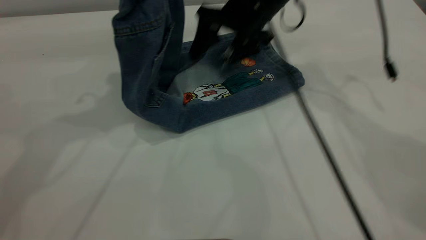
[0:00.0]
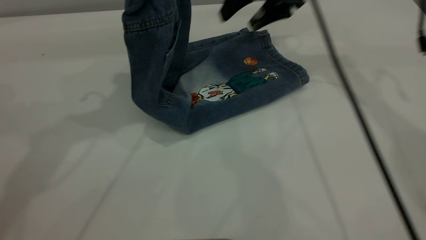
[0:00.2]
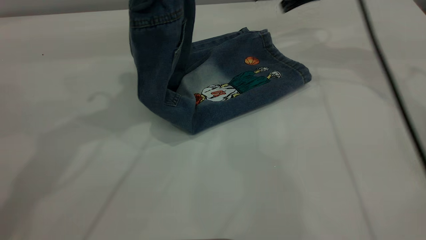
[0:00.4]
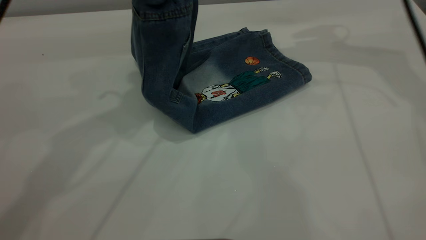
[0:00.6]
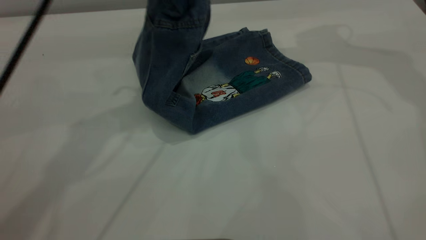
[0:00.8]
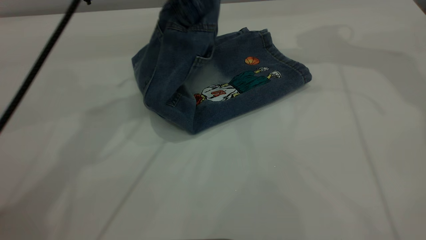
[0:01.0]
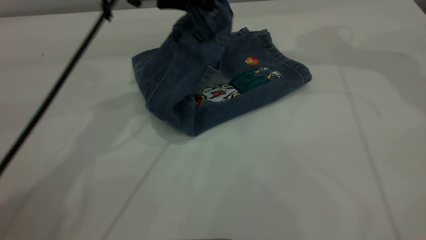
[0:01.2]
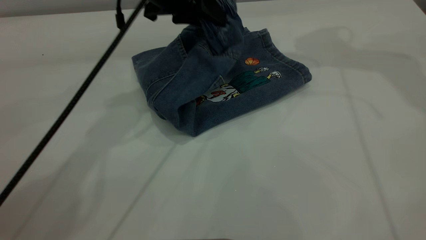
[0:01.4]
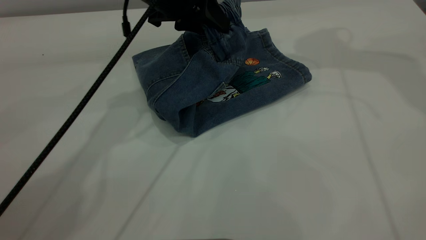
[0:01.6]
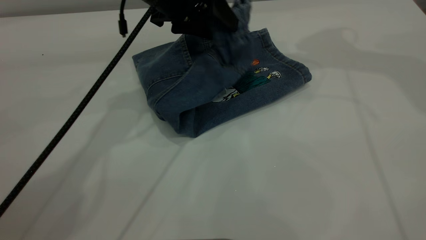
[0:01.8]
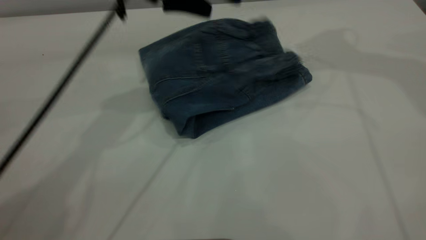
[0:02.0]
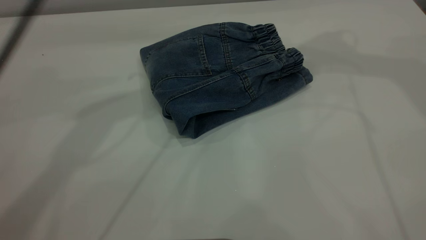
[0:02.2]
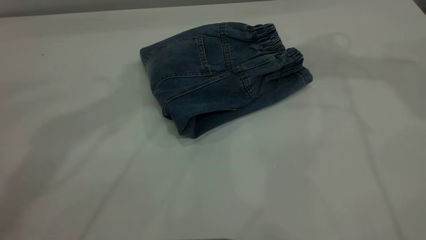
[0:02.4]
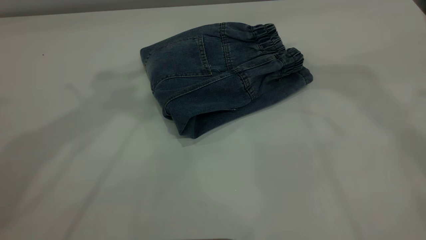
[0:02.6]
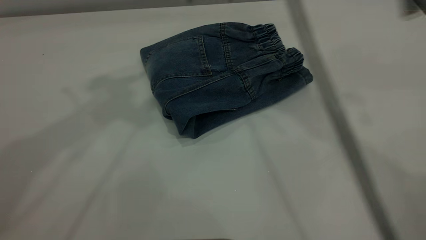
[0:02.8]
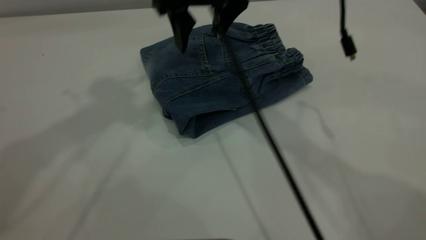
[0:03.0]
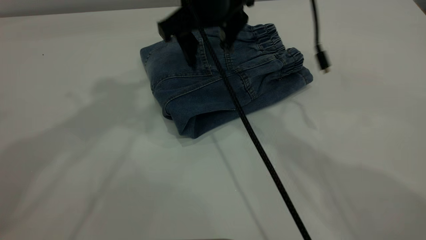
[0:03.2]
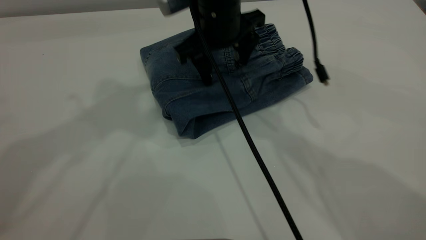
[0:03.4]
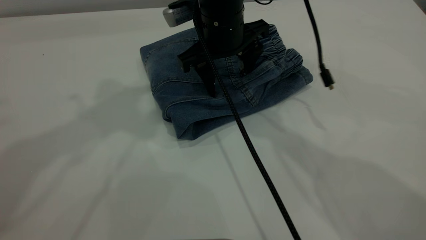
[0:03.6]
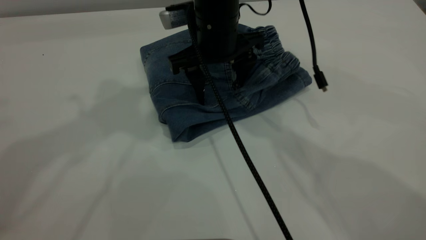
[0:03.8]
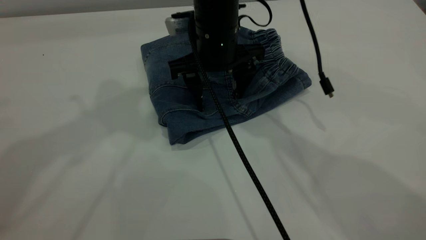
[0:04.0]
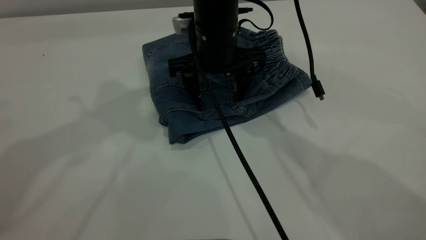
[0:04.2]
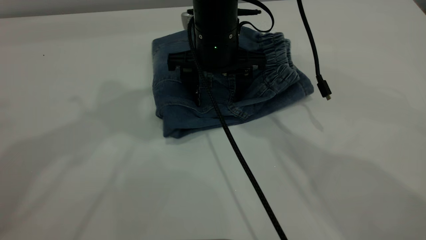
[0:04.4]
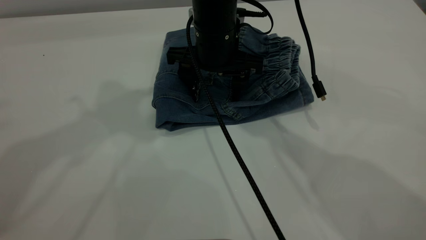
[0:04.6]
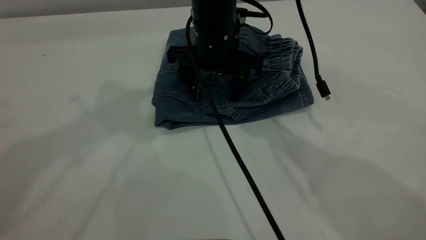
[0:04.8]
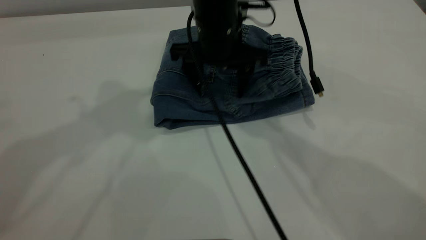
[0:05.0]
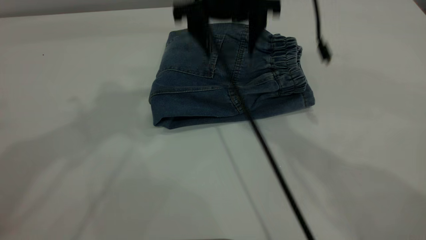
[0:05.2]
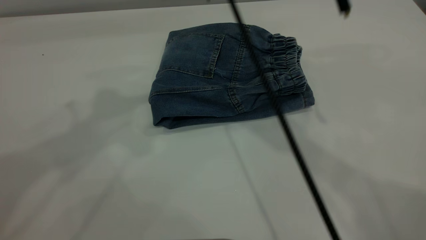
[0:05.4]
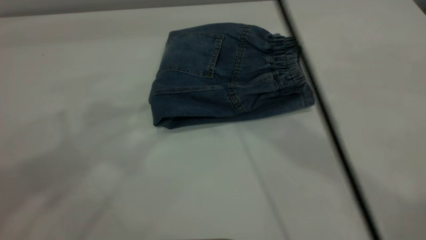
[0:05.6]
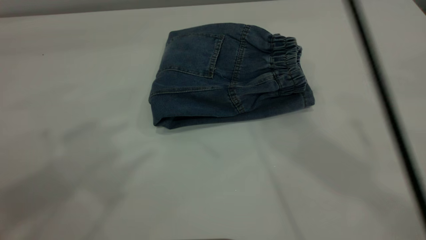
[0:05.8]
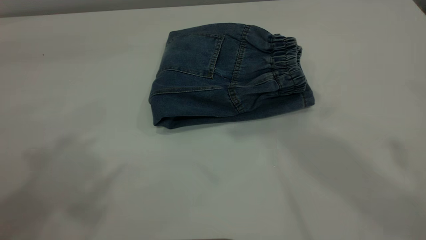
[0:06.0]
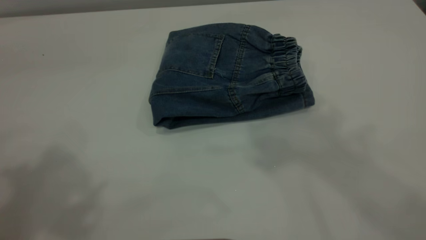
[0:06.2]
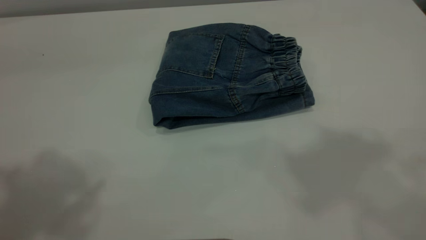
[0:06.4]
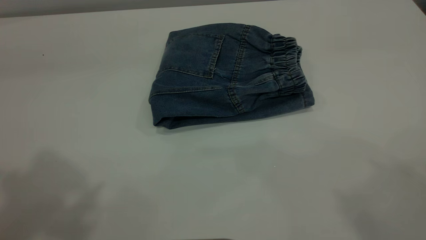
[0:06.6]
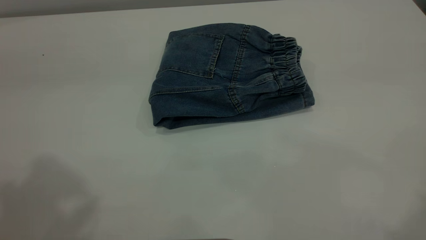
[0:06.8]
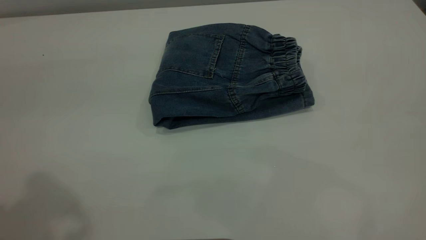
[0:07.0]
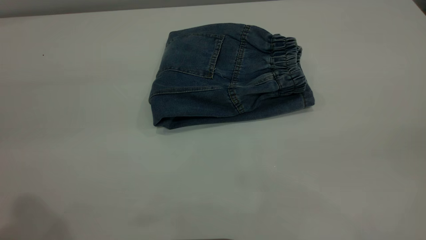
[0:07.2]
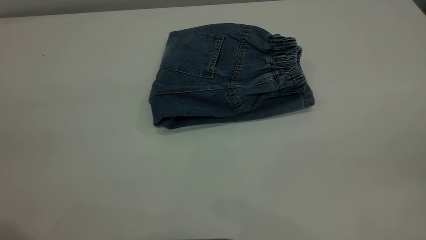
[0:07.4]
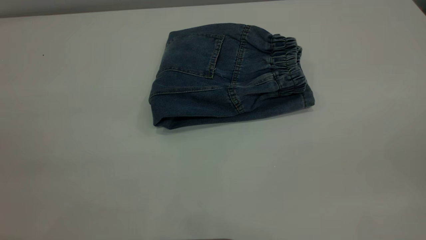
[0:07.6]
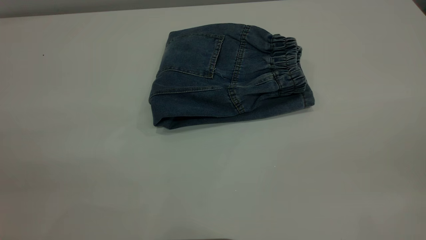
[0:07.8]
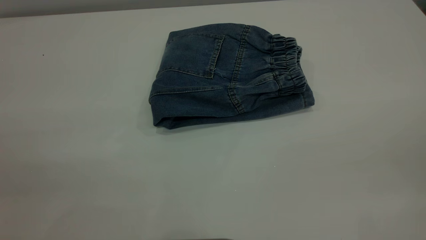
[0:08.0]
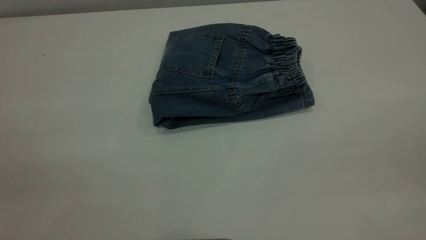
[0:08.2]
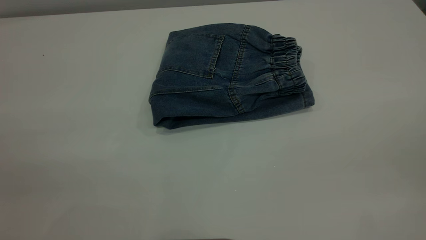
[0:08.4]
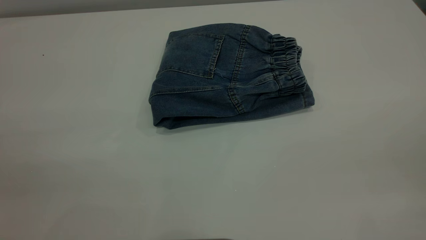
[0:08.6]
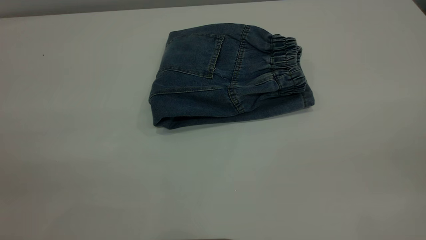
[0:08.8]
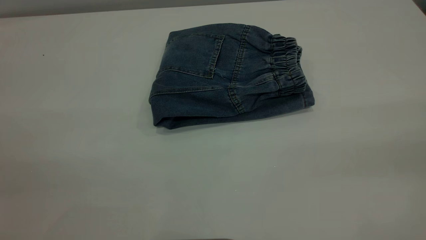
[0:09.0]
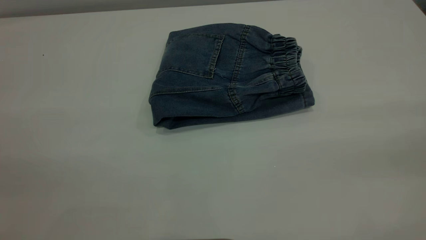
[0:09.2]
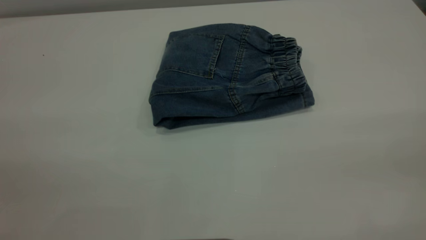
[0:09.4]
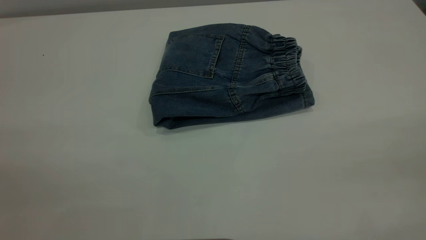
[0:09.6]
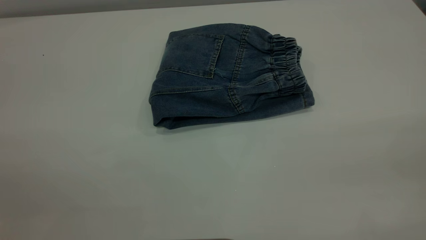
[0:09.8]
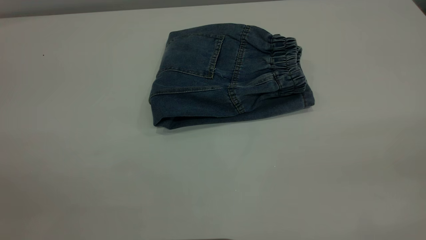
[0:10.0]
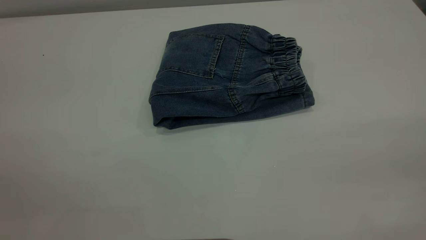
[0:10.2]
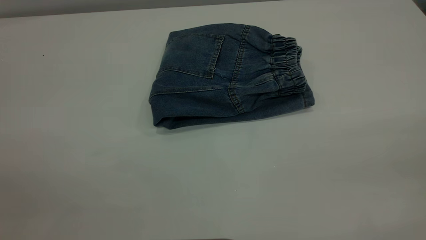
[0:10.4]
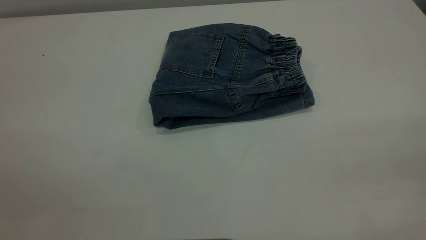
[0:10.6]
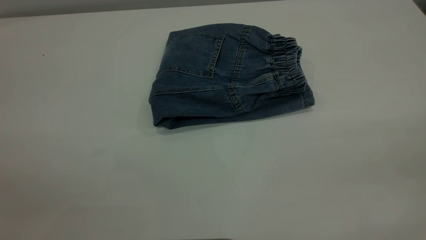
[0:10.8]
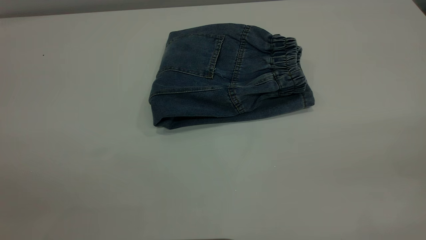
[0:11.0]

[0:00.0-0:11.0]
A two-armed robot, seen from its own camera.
Step, 0:00.0 to 0:02.0: Fold the pants from left to right.
0:00.0 to 0:01.6: The right gripper heads upward and to the right, covering roughly 20 cm. Meanwhile the left gripper heads downward, to the right and forward, covering roughly 15 cm.
0:01.6 to 0:03.2: The right gripper is displaced to the left and downward by about 25 cm. The left gripper heads upward and to the left, covering about 25 cm, and opens its fingers.
0:03.2 to 0:04.8: The right gripper goes about 5 cm downward.
0:04.8 to 0:06.2: The left gripper goes approximately 15 cm backward and upward. Meanwhile the right gripper heads upward, covering approximately 40 cm.
